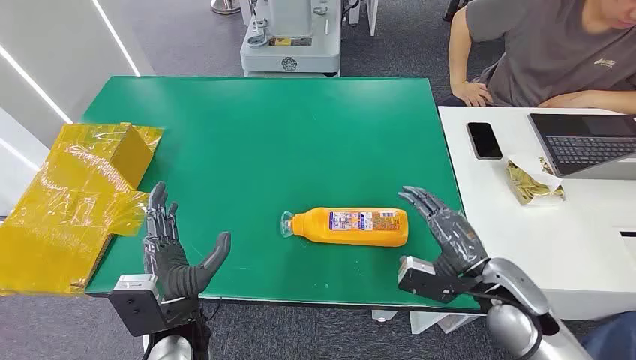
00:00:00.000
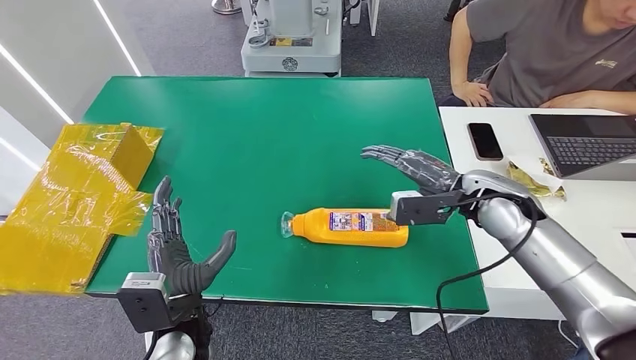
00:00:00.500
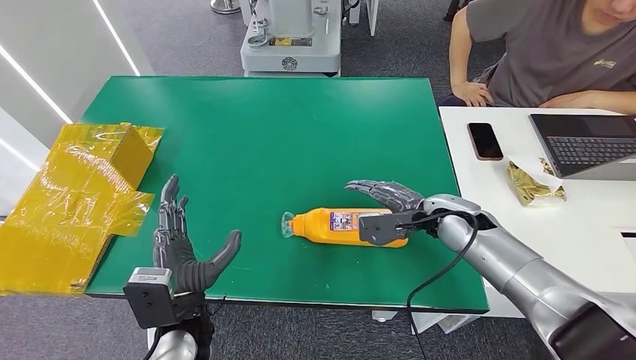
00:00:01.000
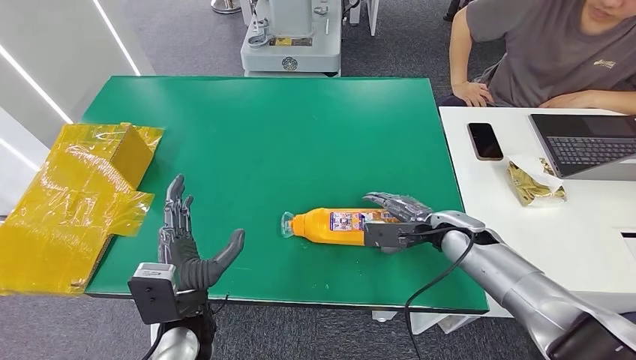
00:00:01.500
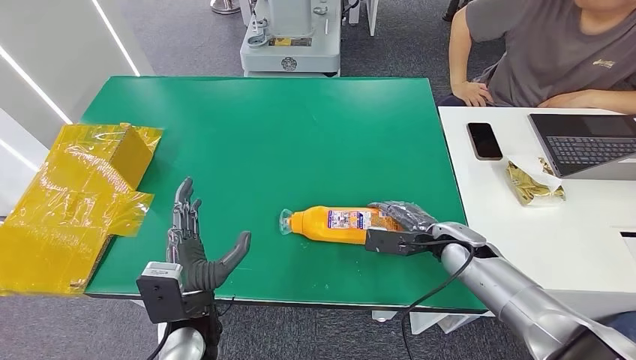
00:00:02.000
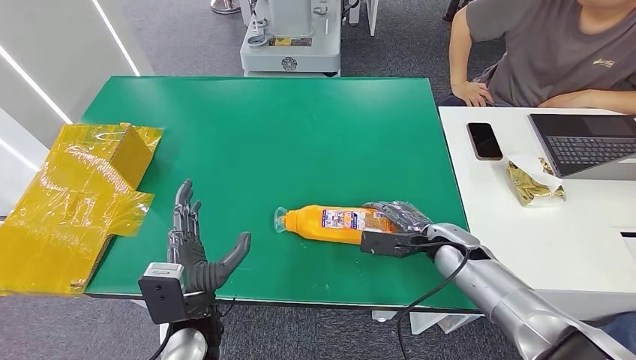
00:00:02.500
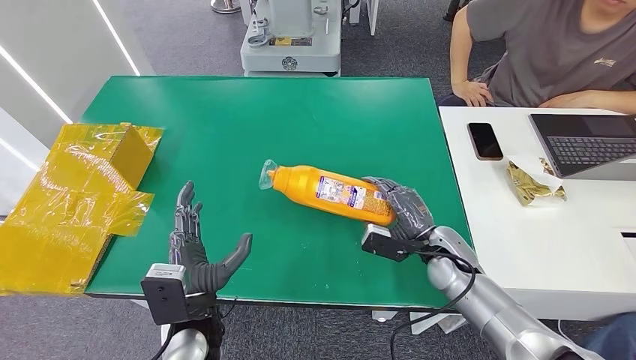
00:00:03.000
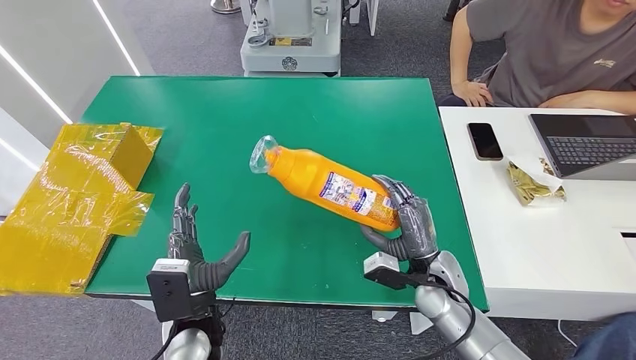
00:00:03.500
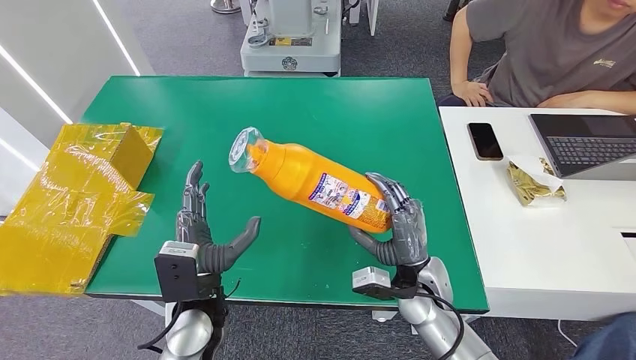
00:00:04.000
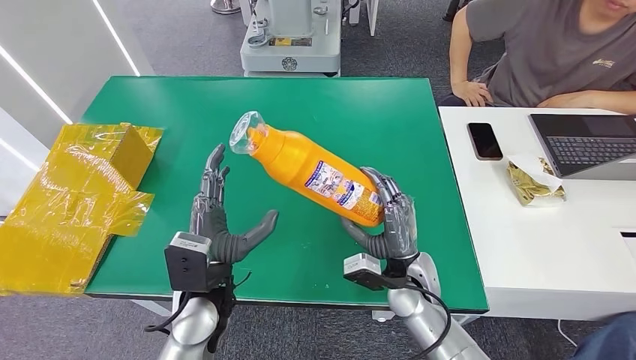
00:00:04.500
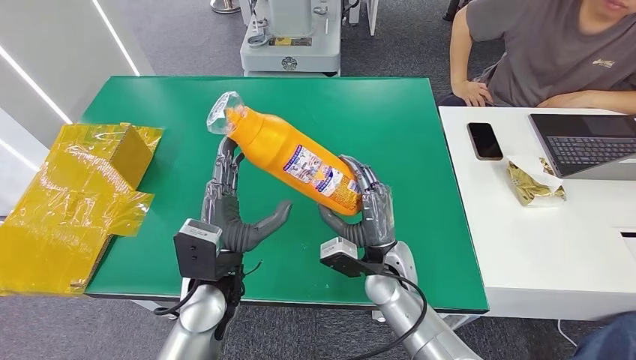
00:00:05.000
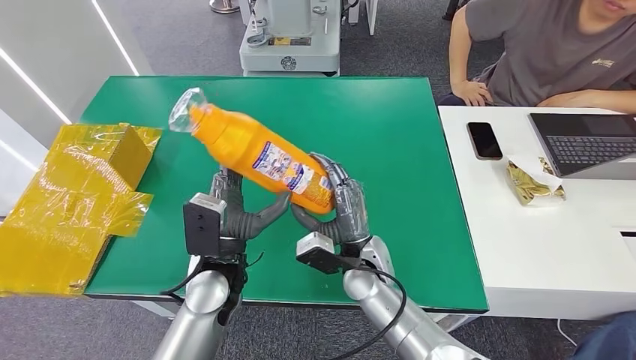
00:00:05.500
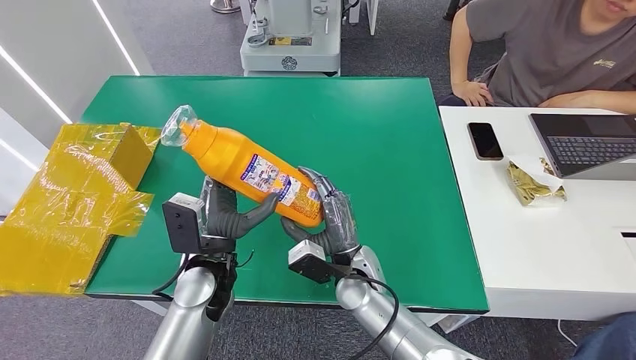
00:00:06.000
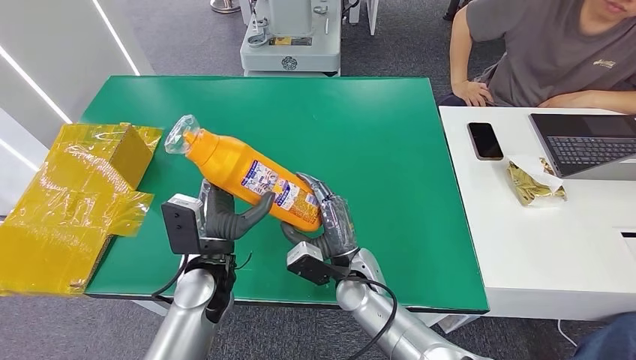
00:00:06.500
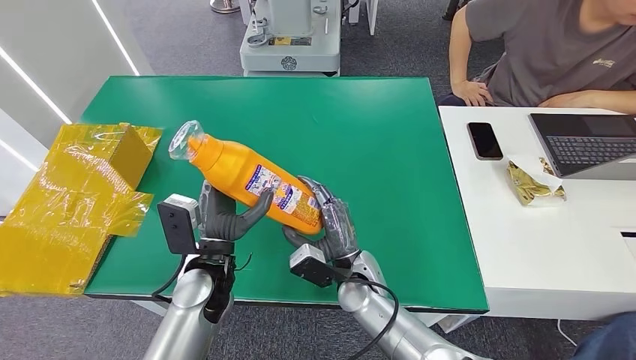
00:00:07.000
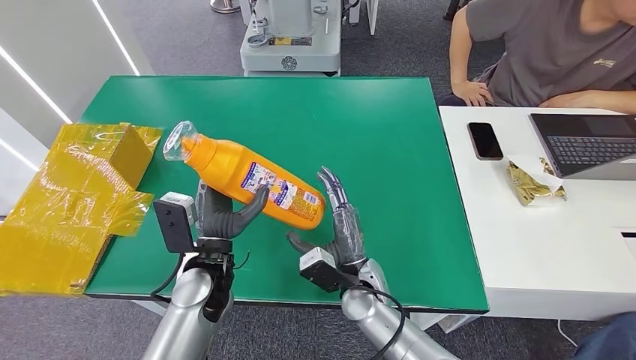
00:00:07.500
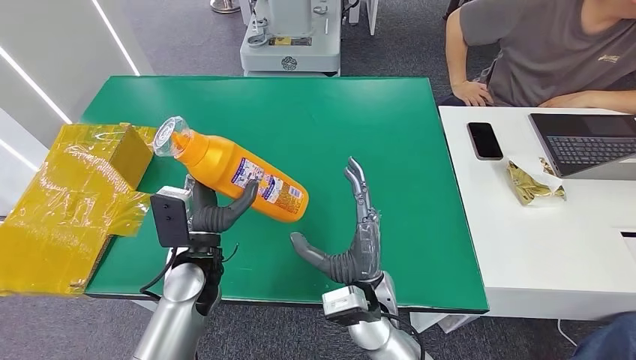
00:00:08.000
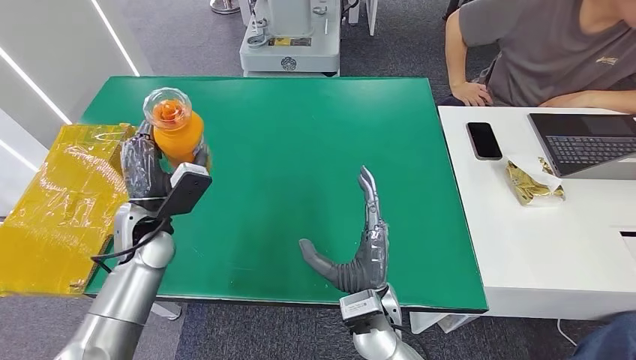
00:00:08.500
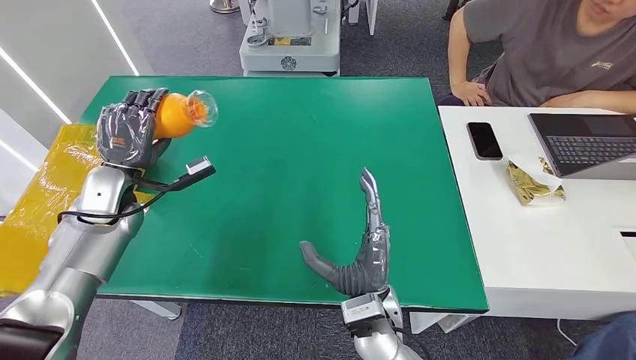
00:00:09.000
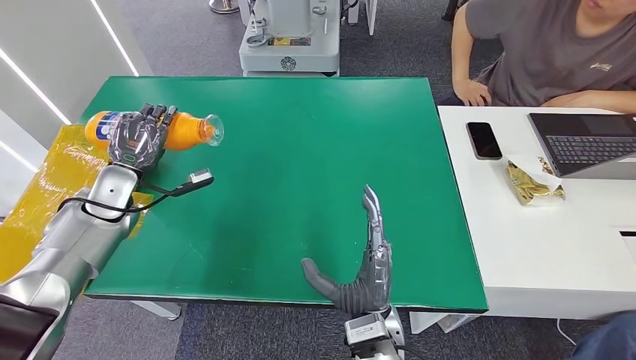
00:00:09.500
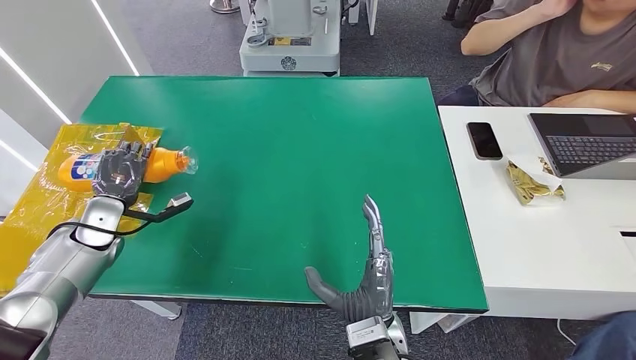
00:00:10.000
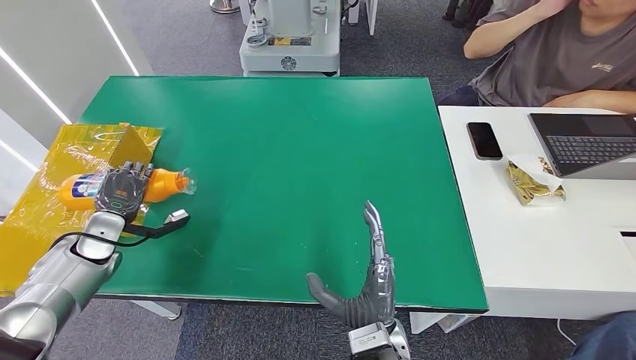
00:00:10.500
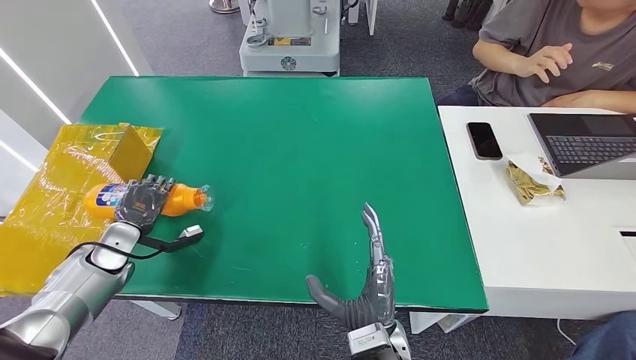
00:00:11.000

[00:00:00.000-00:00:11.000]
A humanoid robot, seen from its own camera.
Step, 00:00:00.000 to 00:00:04.500: Pick up the bottle from the table.
00:00:02.000 to 00:00:03.500: The right hand shifts some 10 cm to the left and backward.
00:00:03.500 to 00:00:05.500: The right hand heads to the left, covering some 15 cm. The left hand is displaced forward by about 10 cm.
00:00:05.500 to 00:00:07.500: The hands move only a little.
00:00:07.500 to 00:00:09.000: The right hand moves backward, roughly 5 cm. The left hand moves to the left and forward, approximately 25 cm.
00:00:09.000 to 00:00:11.000: The left hand goes roughly 15 cm downward, to the left and backward, while the right hand shifts by roughly 5 cm.

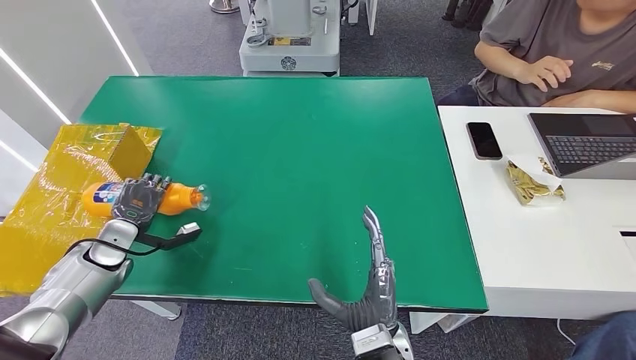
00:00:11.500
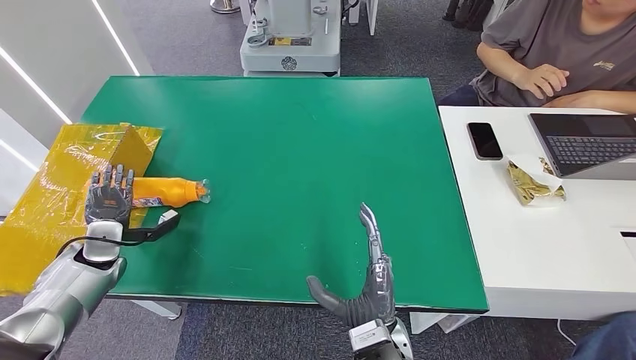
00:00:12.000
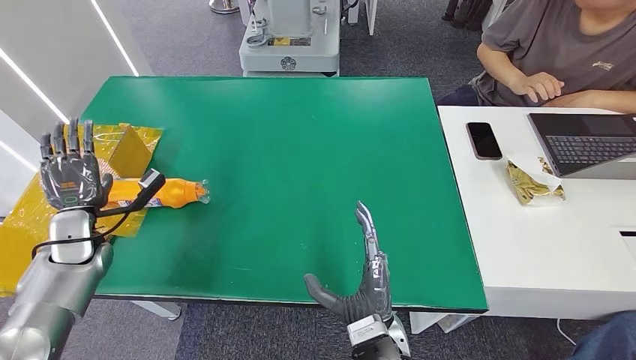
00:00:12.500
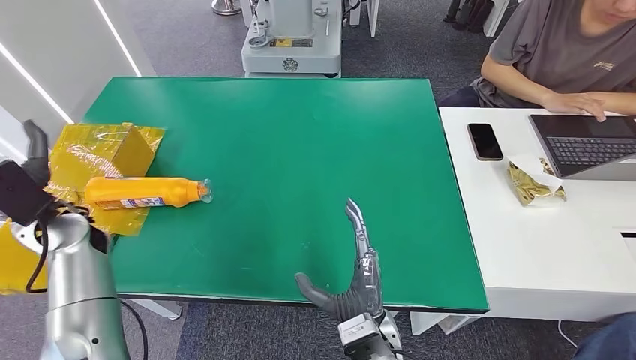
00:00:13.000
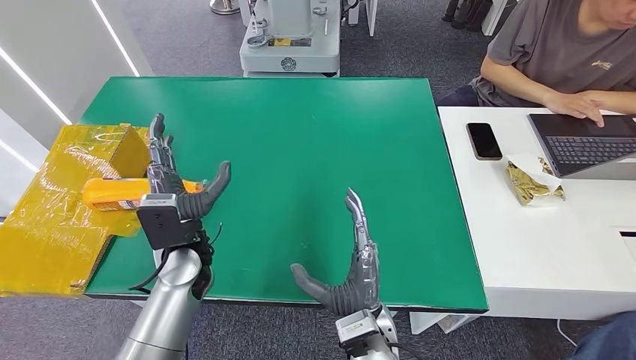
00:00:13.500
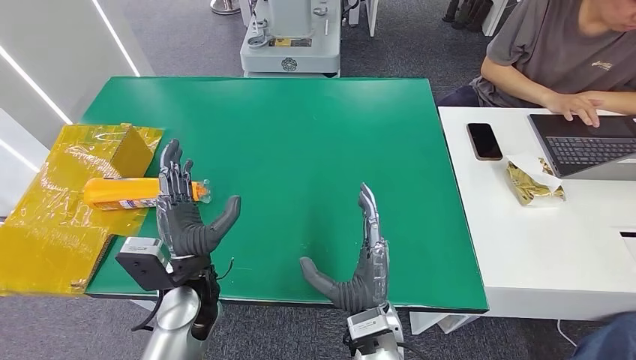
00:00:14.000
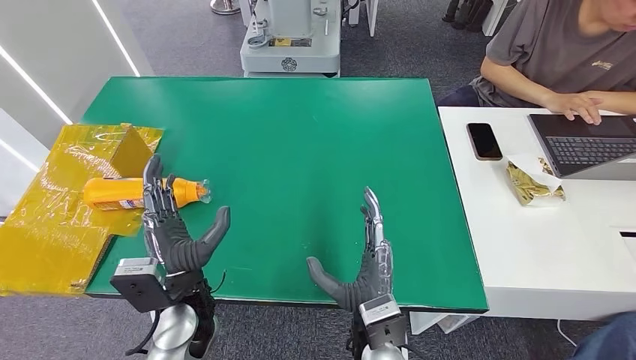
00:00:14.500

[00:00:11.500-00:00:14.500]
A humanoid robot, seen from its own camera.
Step, 00:00:11.500 to 00:00:14.500: Turn the bottle to the front side.
00:00:11.500 to 00:00:13.000: The left hand shifts approximately 15 cm upward and to the right.
00:00:13.000 to 00:00:14.500: The left hand moves to the right and backward, roughly 25 cm.
